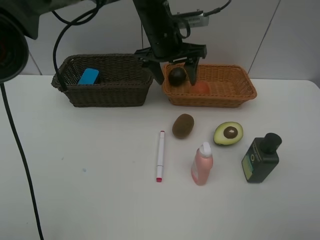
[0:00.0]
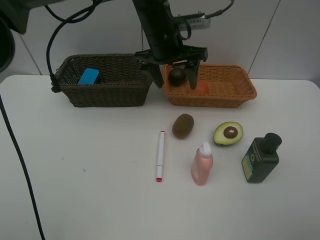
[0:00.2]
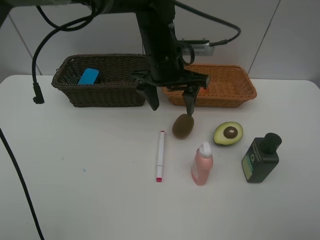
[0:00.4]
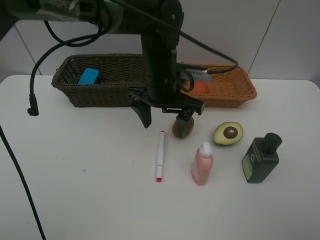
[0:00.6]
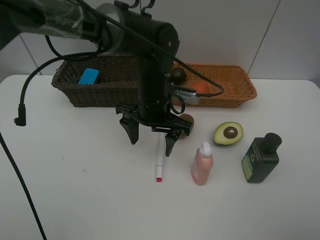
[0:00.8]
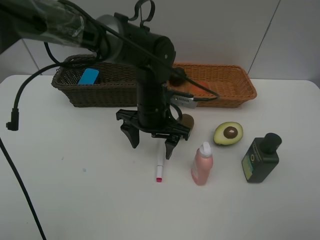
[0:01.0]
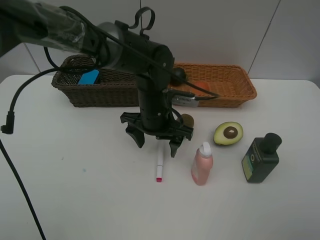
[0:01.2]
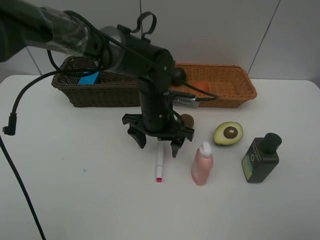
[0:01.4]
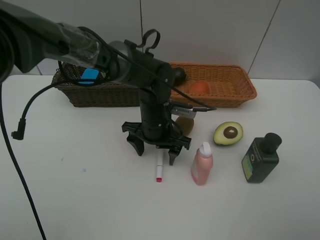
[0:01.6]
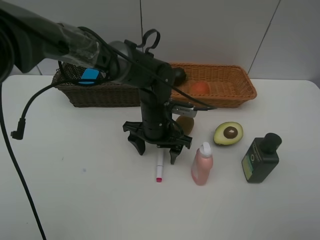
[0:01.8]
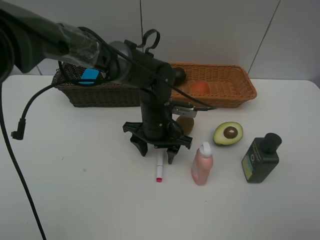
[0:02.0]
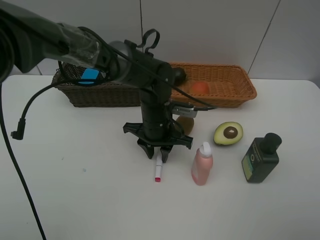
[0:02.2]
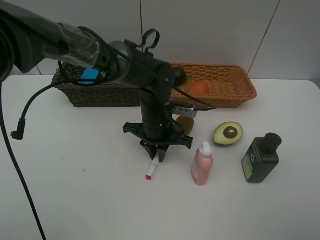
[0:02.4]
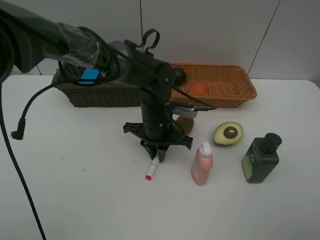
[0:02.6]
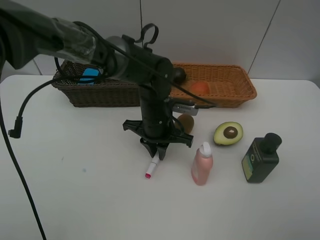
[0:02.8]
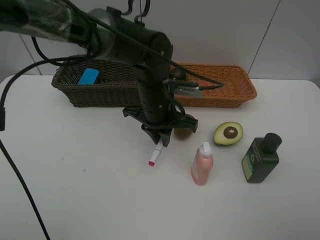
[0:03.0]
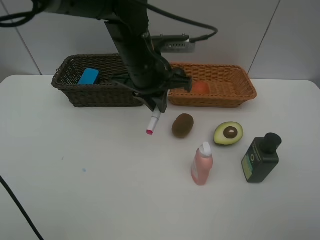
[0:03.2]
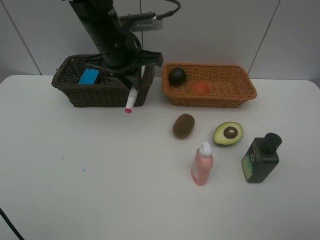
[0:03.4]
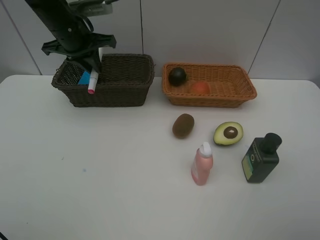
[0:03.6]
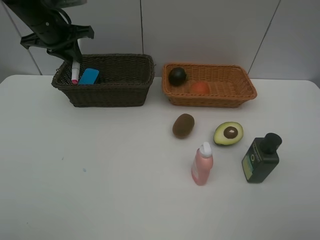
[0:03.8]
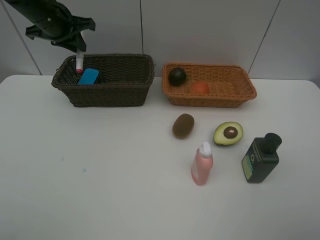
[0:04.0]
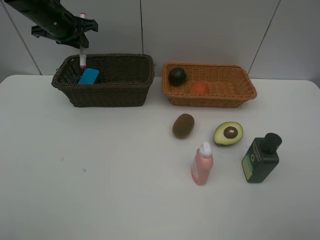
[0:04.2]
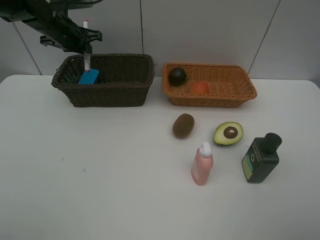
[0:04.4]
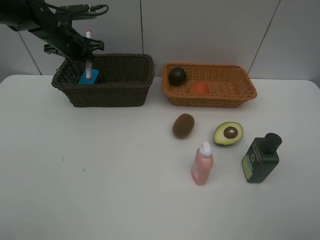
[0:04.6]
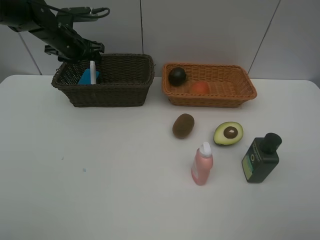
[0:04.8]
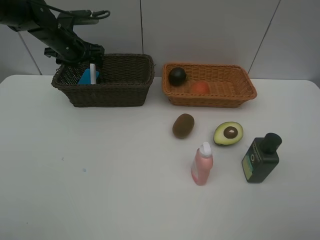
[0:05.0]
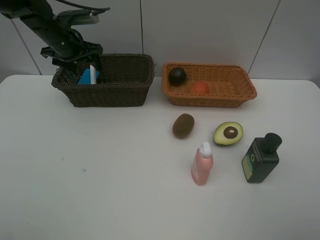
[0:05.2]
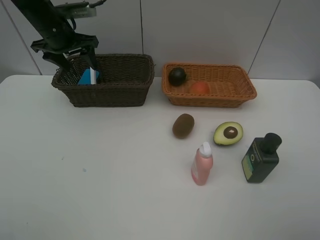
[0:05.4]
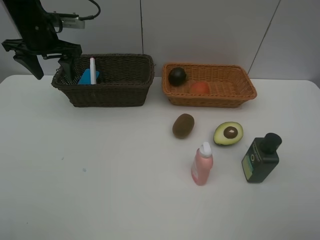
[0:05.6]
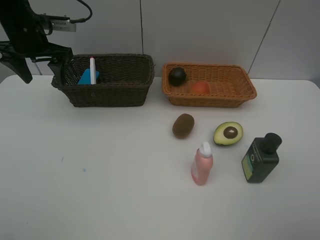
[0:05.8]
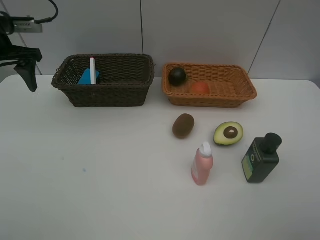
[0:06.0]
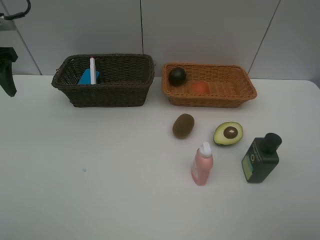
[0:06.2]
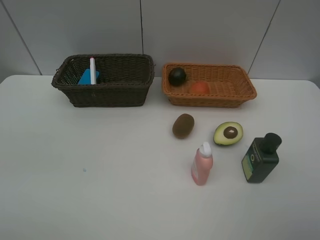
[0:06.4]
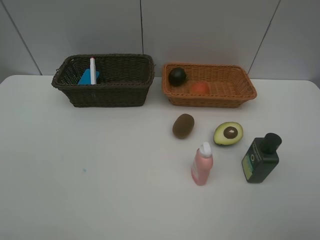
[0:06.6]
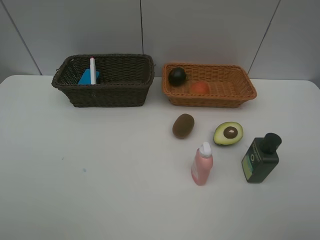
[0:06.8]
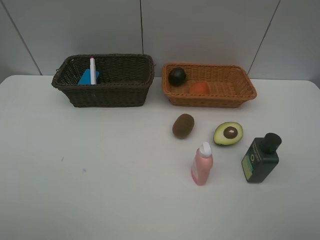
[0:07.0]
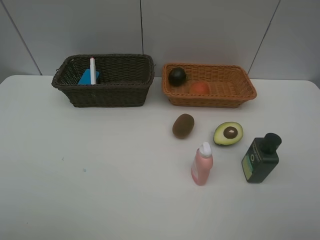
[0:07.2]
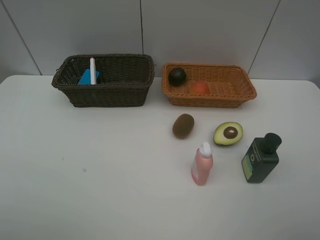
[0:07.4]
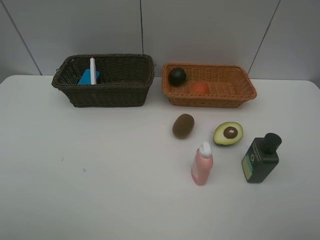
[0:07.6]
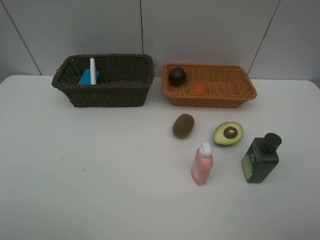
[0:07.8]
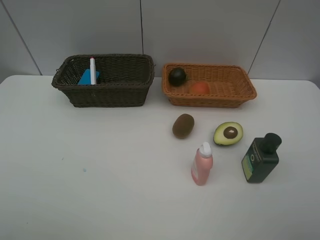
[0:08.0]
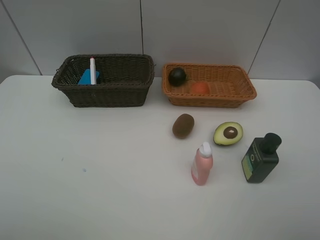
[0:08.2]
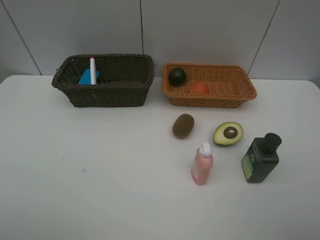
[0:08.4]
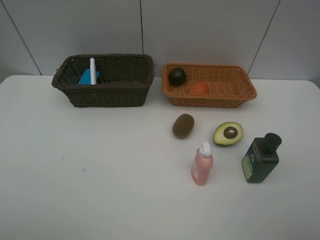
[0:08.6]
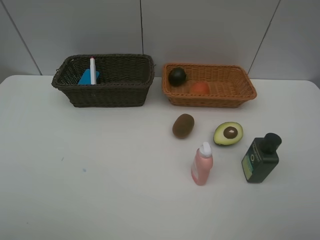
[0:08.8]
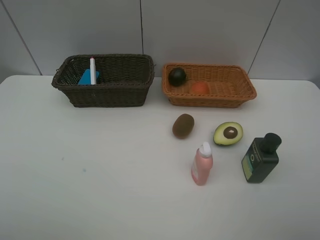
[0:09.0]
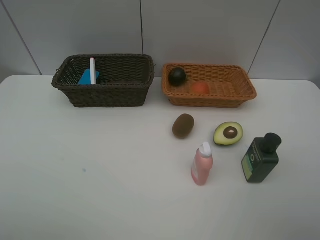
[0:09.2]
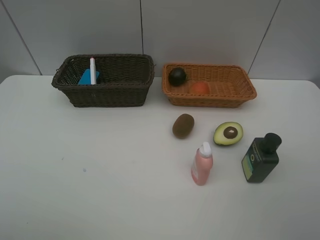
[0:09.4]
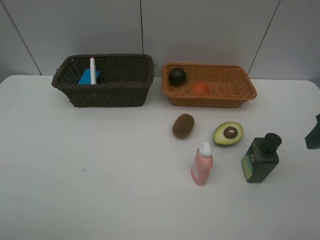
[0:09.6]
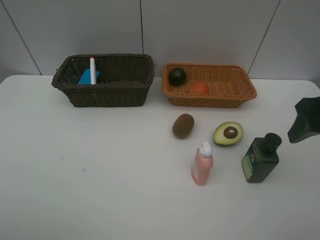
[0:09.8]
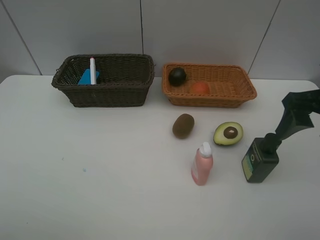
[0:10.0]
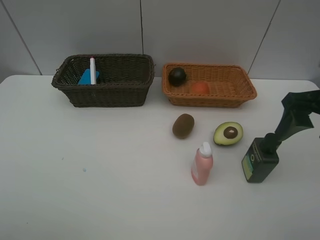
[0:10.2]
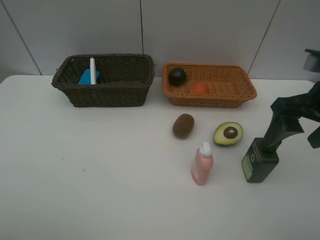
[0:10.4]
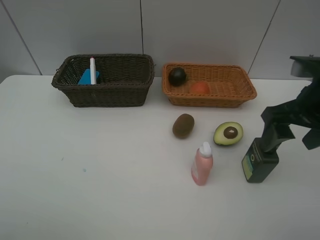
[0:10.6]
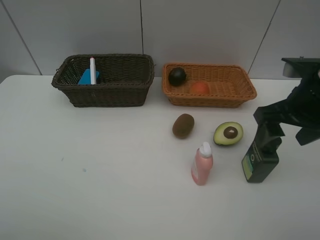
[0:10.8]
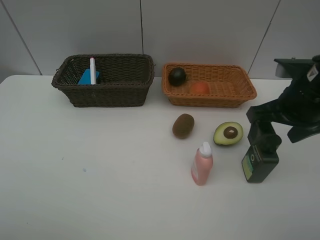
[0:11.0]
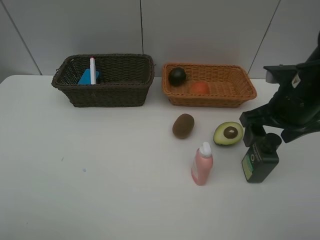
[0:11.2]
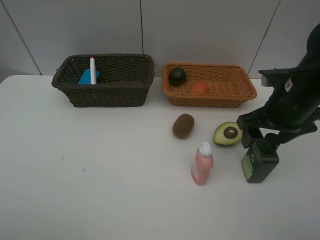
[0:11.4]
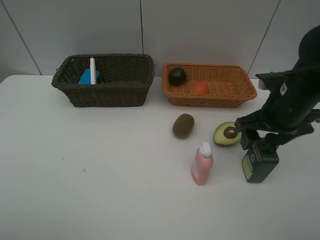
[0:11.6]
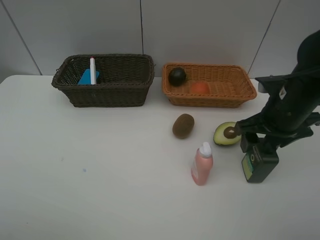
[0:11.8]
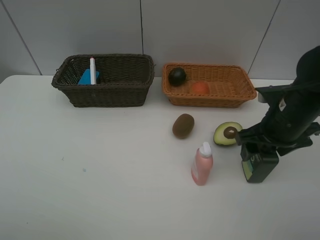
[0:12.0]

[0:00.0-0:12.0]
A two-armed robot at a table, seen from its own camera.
Task of the whole recording: Place multiple objects separately in different baskets.
Step, 0:00.0 to 0:02.8: Pick up pink marker pen with left gripper.
Step, 0:03.0 to 0:05.0: Place the pink marker pen in the dark basket with left gripper.
0:00.0 to 0:01.6: The left gripper shifts some 20 cm downward and backward.
0:01.6 to 0:03.0: The left gripper moves upward, about 5 cm, and closes up.
0:03.0 to 0:04.4: The left gripper travels to the left and forward by some 30 cm.
0:04.4 to 0:06.0: The left gripper heads backward, to the left and upward, covering roughly 15 cm, and opens up.
0:06.0 to 0:07.6: The left gripper shifts about 35 cm backward.
0:09.0 to 0:10.4: The right gripper shifts some 20 cm forward.
0:10.4 to 0:12.0: The right gripper shifts some 10 cm downward.

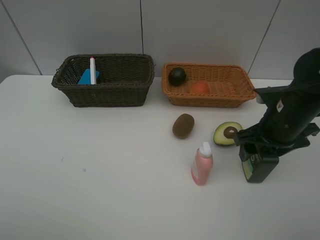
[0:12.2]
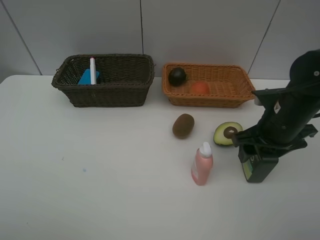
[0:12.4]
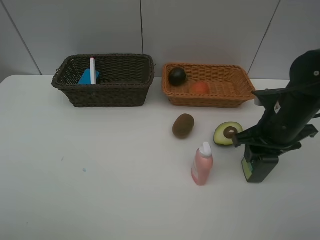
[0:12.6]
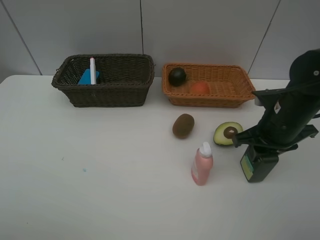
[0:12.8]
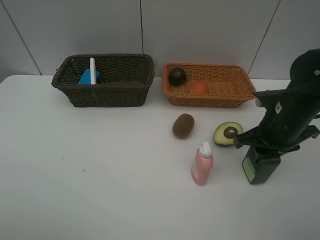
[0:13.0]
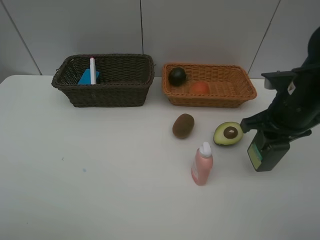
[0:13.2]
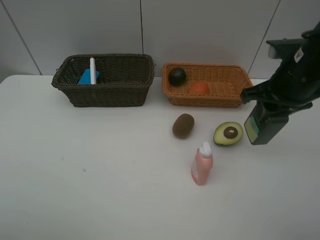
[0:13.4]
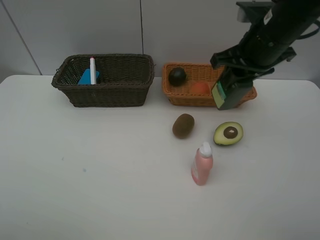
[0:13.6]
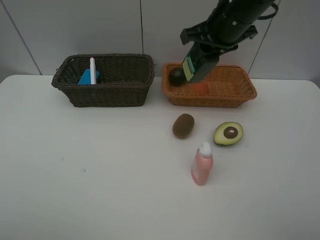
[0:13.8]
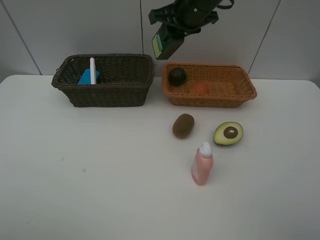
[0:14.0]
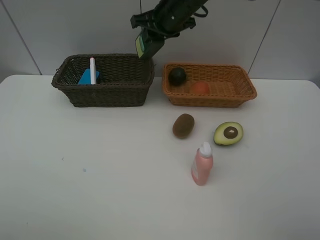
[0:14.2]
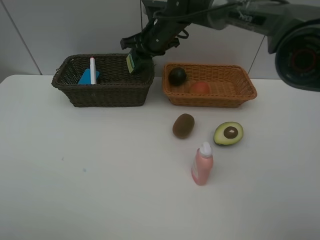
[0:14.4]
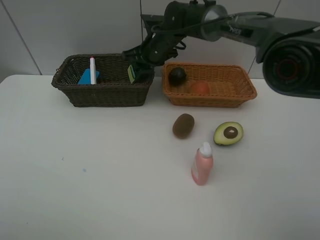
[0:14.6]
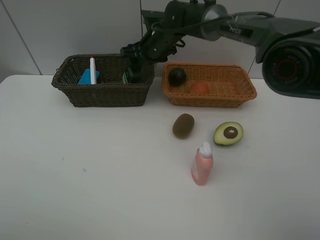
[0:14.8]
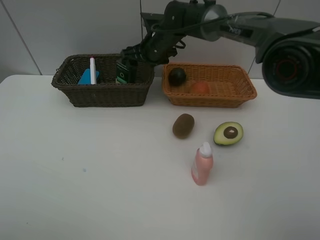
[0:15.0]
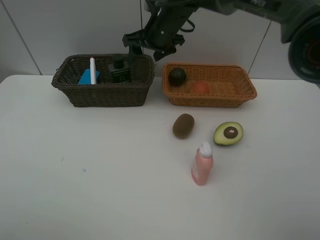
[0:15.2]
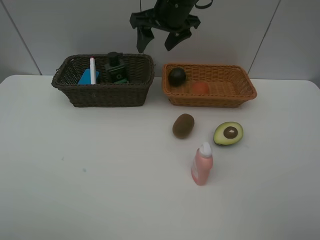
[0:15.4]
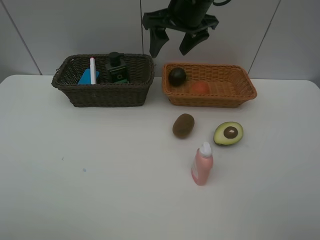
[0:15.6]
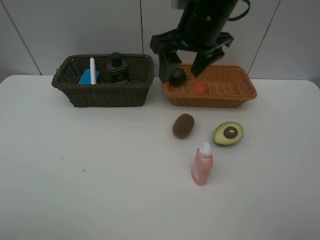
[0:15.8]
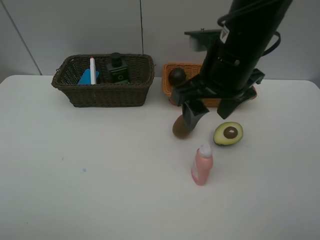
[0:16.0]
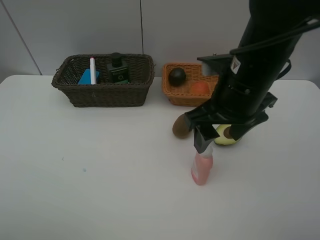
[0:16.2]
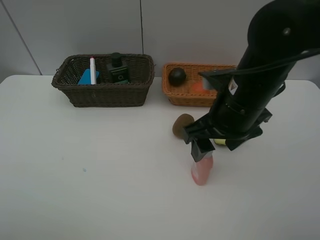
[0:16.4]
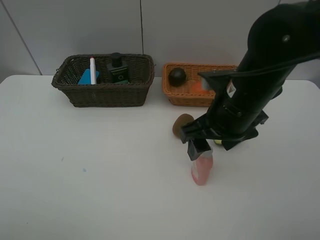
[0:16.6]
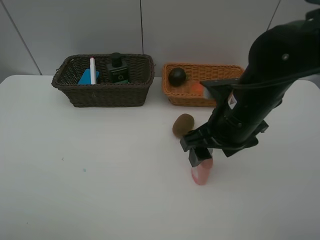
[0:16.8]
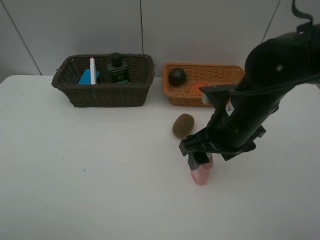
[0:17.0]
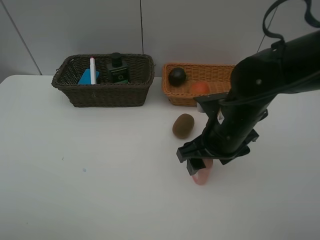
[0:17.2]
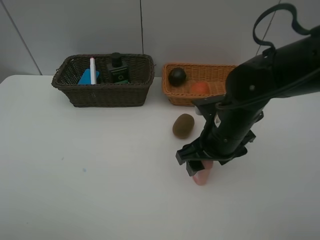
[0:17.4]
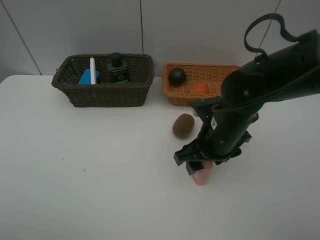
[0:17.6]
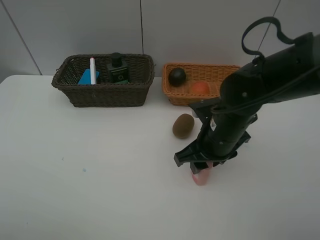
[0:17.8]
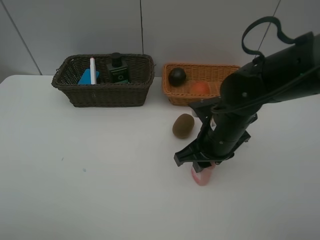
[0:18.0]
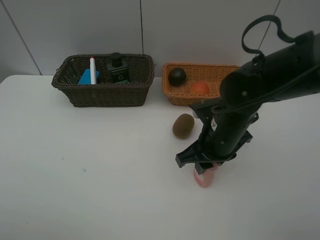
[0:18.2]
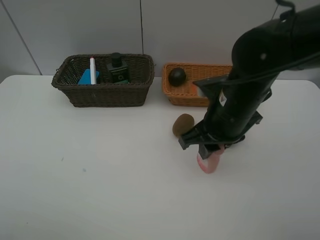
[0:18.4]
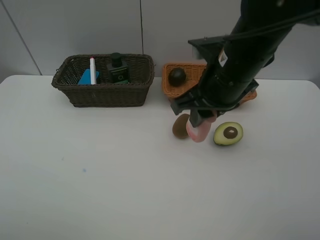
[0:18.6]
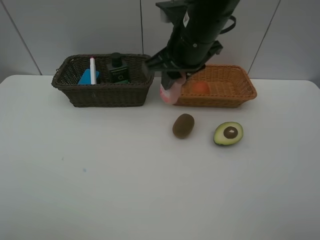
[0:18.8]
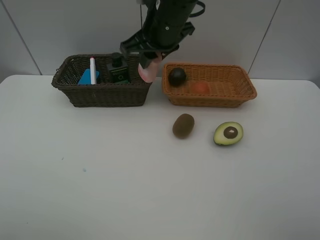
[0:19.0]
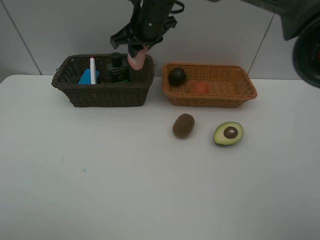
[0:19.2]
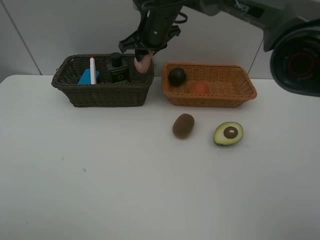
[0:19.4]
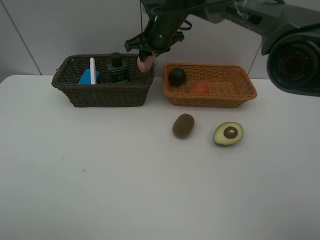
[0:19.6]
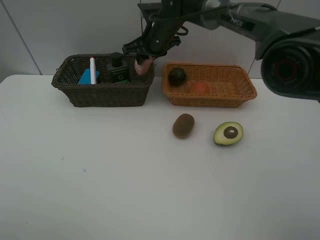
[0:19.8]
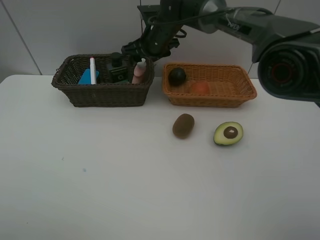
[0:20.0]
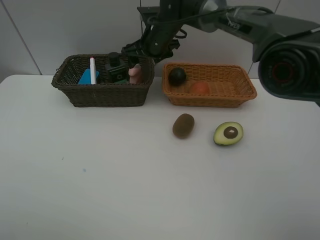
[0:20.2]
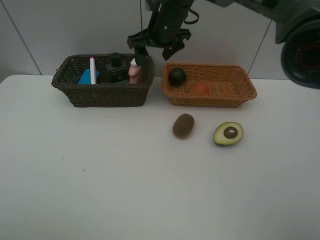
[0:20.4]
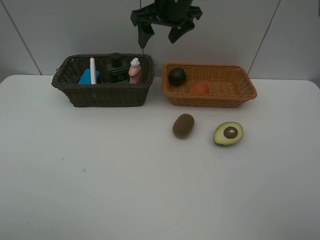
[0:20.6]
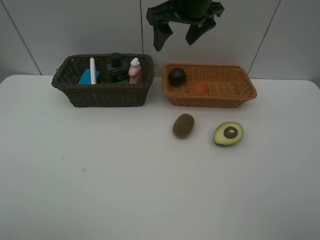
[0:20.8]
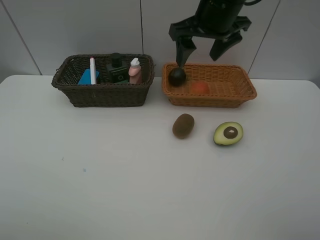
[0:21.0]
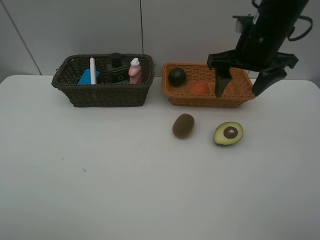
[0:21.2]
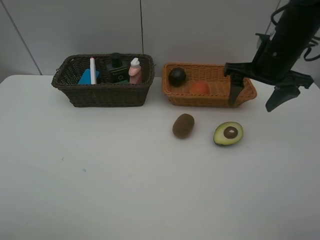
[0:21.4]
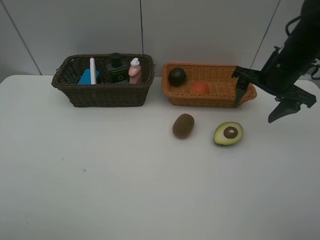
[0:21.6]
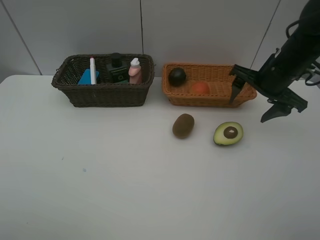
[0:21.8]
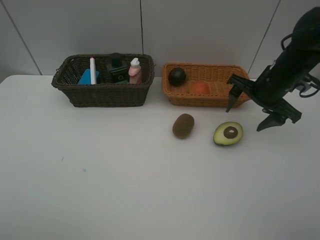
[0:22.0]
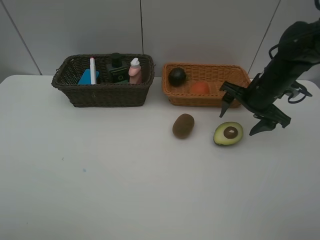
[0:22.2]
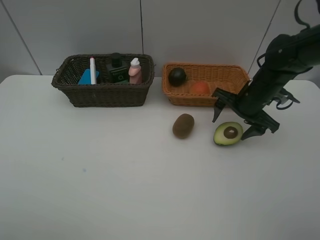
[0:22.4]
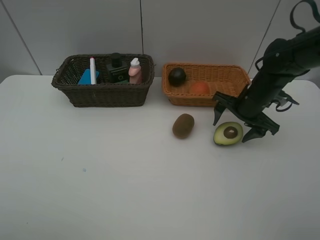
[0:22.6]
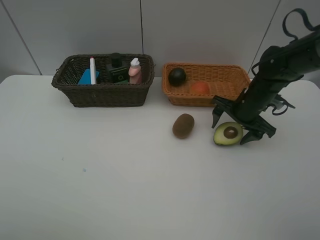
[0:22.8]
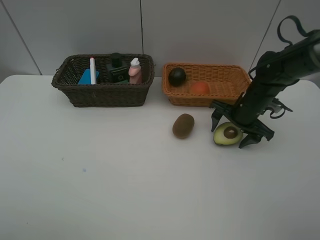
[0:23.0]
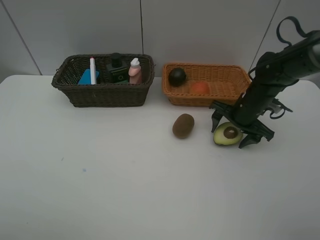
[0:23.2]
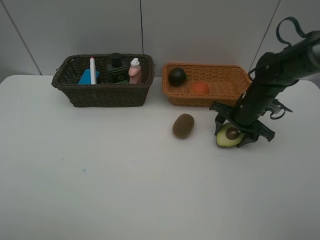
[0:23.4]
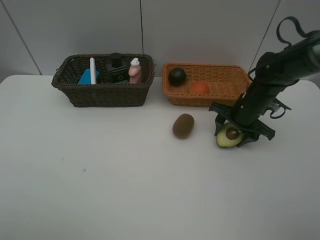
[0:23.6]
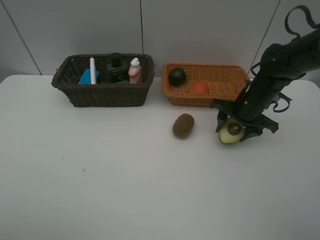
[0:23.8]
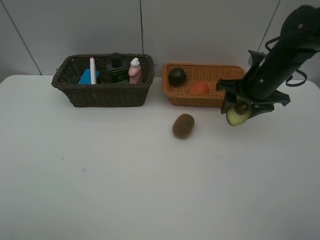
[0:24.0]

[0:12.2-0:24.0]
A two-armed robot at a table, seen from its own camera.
Task of the whole recording: Place multiple objects separately in different baskets.
Step, 0:13.4 to 0:15.0: Place the hard facial cleanser in the dark basket with right gripper.
Step, 0:15.2 to 0:18.2: Pick up the laundry detergent with right gripper.
Step, 0:18.4 to 0:20.2: Place the laundry detergent in the dark basket with right gripper.
Step, 0:20.4 to 0:23.8: Pick up the avocado with right gripper.
0:12.2 to 0:13.6: The right gripper goes roughly 15 cm upward, forward and to the left, and closes.
0:13.6 to 0:15.2: The right gripper goes approximately 20 cm to the left and forward, and opens its fingers.
0:15.2 to 0:16.6: The right gripper travels backward and to the right by approximately 25 cm.
0:16.6 to 0:18.2: The right gripper travels downward by approximately 5 cm, and closes up.
0:18.2 to 0:19.6: The right gripper moves forward and to the left, approximately 25 cm.
0:19.6 to 0:21.0: The right gripper moves backward, to the right and upward, roughly 20 cm, and opens up.
0:21.0 to 0:22.6: The right gripper moves downward and to the right, some 20 cm.
0:22.6 to 0:24.0: The right gripper shifts about 5 cm upward, and closes.
